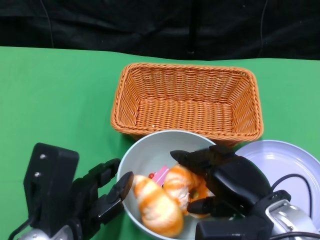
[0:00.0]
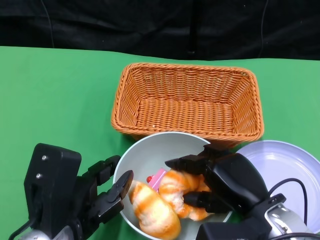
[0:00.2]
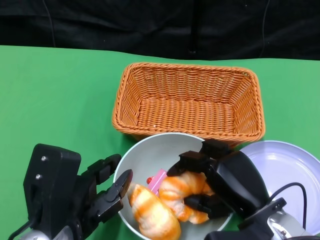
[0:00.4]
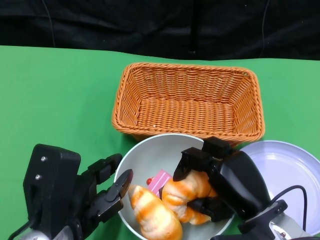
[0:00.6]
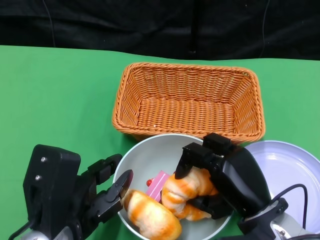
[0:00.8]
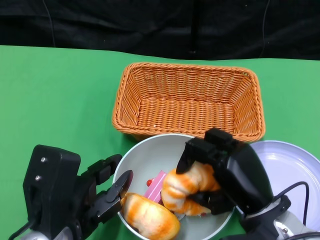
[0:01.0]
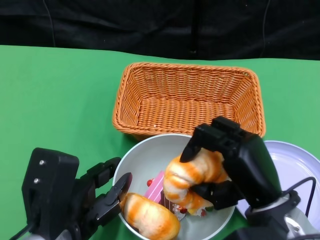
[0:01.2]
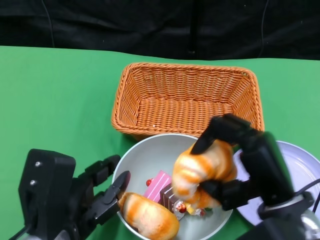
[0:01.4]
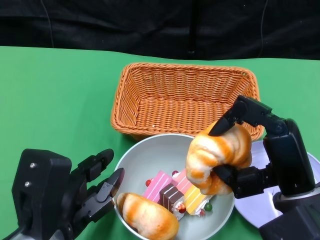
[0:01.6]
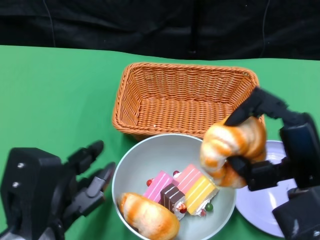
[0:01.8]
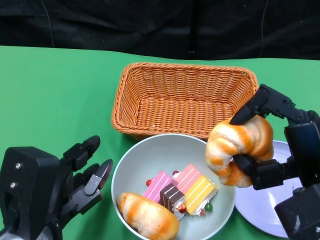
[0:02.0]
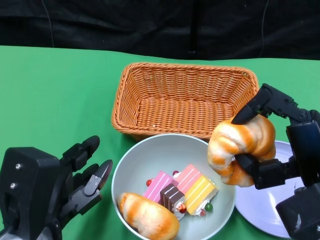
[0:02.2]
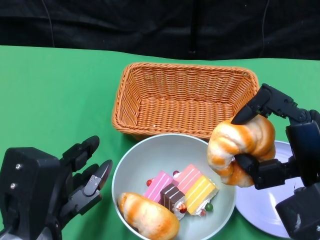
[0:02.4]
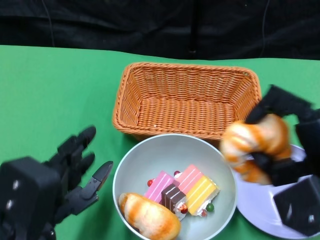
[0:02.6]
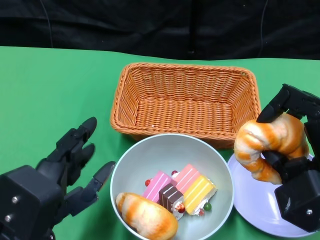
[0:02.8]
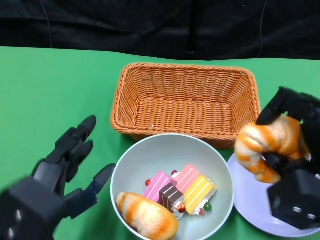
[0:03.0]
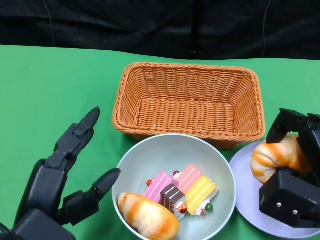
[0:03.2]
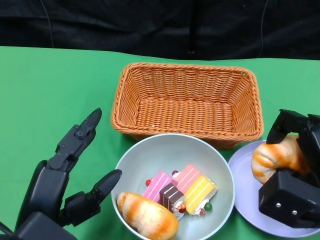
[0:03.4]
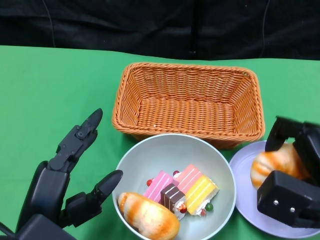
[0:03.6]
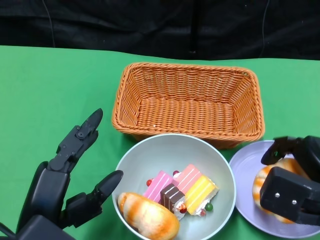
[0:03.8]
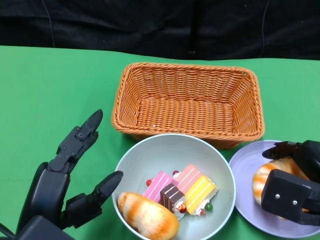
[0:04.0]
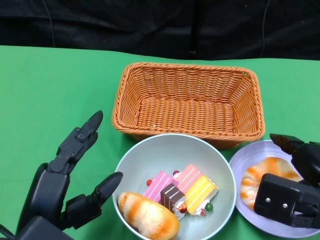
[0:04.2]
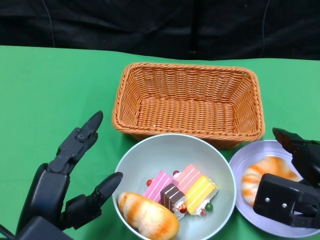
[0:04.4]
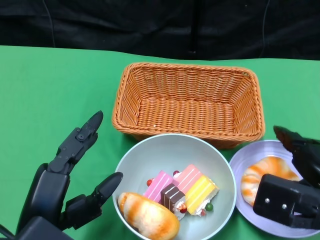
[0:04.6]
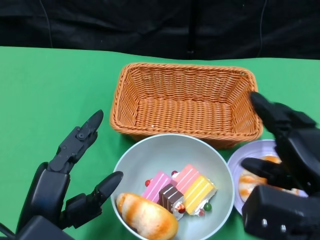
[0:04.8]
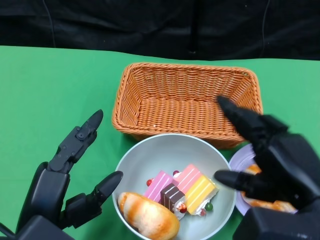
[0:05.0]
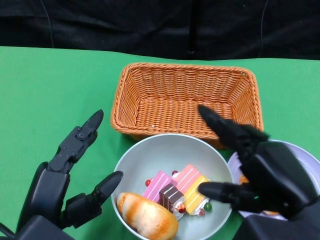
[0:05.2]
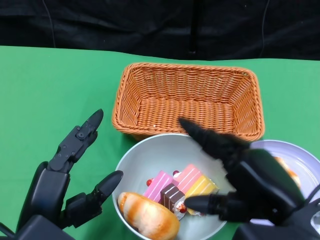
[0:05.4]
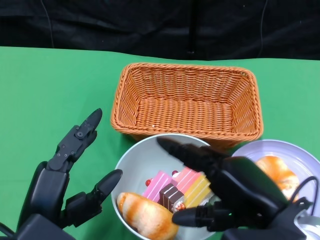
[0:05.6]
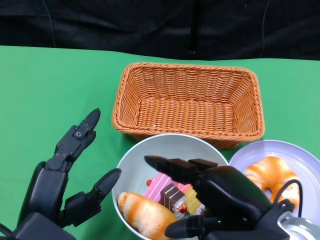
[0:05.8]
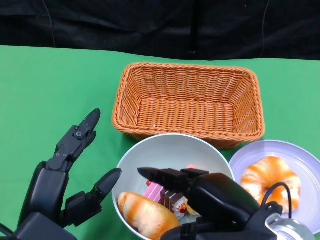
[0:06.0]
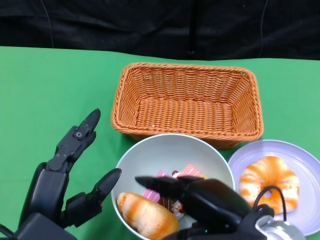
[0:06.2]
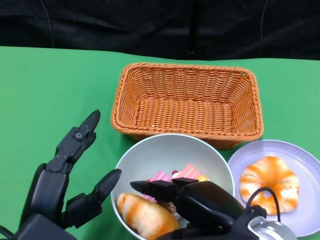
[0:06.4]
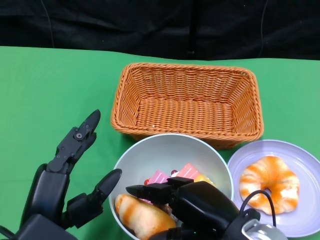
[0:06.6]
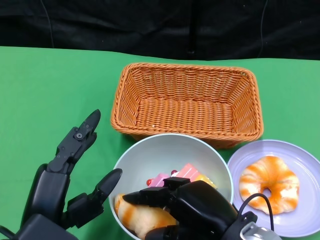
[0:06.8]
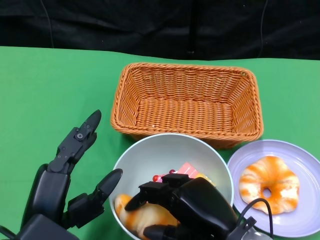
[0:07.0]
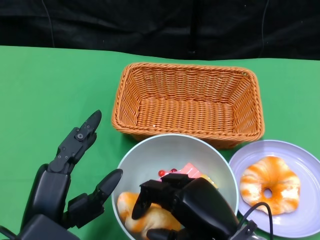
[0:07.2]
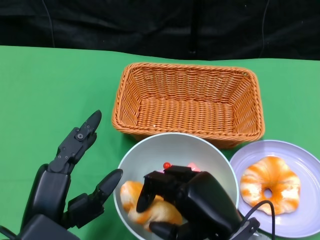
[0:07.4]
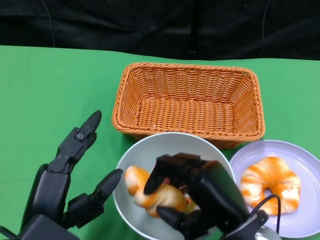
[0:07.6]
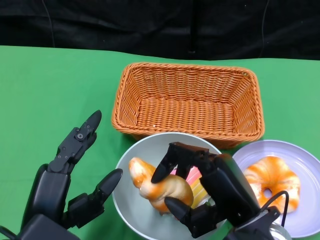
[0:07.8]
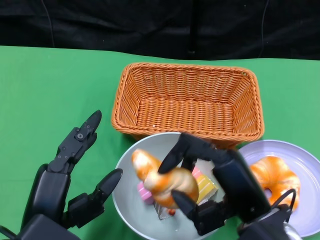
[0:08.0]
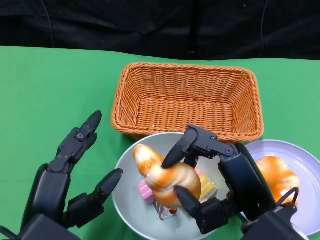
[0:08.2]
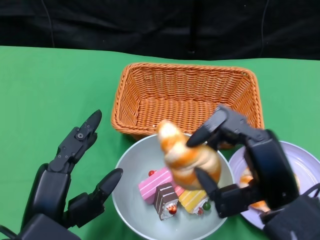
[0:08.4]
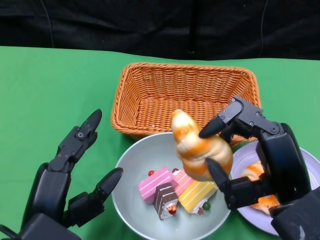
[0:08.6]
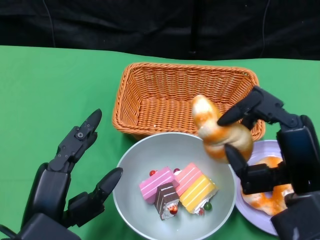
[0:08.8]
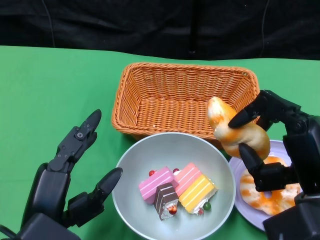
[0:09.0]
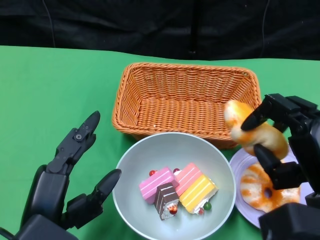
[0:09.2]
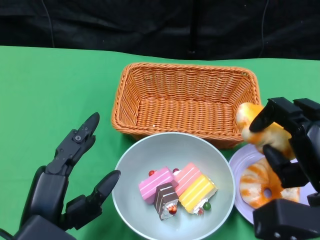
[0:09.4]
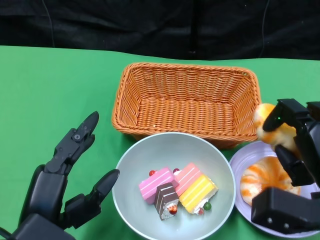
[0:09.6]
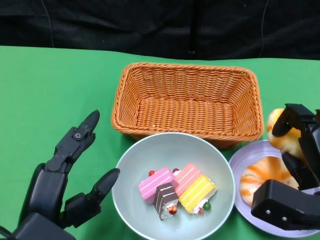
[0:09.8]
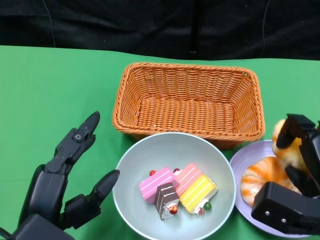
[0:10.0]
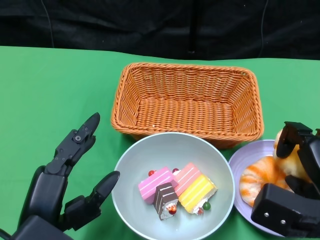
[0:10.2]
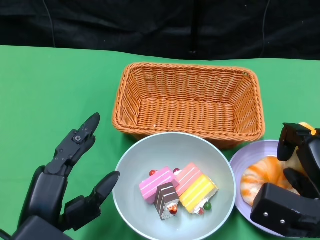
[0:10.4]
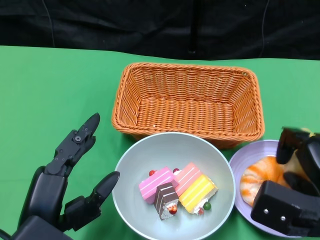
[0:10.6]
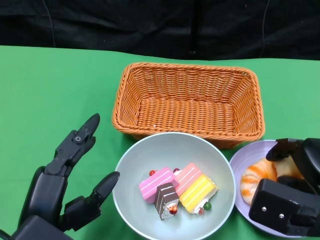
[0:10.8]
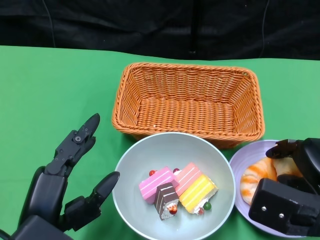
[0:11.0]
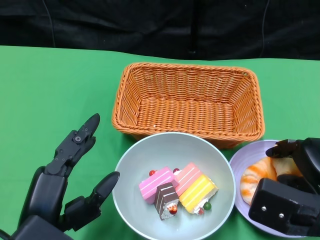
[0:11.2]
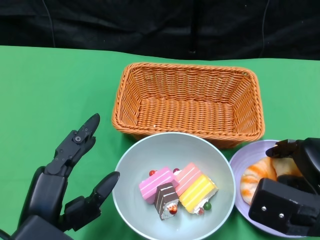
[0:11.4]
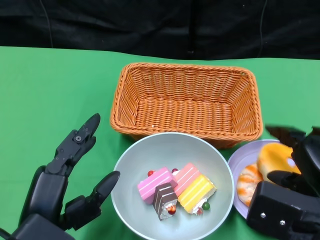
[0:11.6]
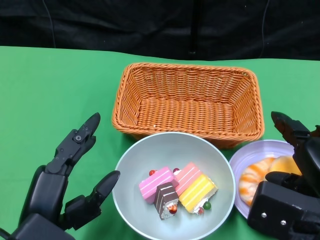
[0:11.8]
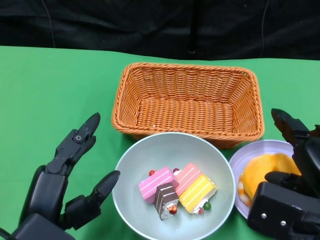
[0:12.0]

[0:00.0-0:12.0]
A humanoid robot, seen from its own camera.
Step, 0:00.0 to 0:04.6: Pick up the bread with the right gripper and place it on the plate.
Step, 0:05.0 to 0:11.6: Pick up the bread with the right gripper and place it on the plate.
0:01.6 to 0:03.0: The right hand is displaced to the right by about 5 cm.
0:04.4 to 0:06.0: The right hand travels to the left by about 10 cm.
0:06.0 to 0:07.6: The right hand changes place by approximately 5 cm.
0:07.6 to 0:09.0: The right hand is displaced to the right by some 10 cm.
0:09.0 to 0:10.4: The right hand moves approximately 5 cm.
0:10.4 to 0:12.0: The hands make only small movements.

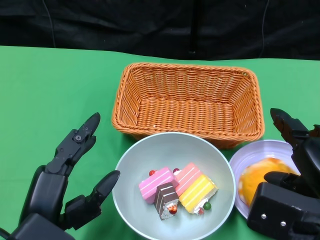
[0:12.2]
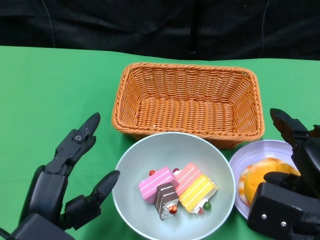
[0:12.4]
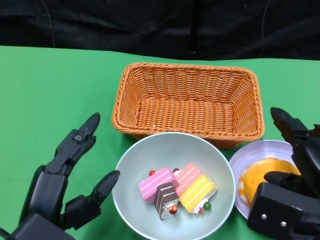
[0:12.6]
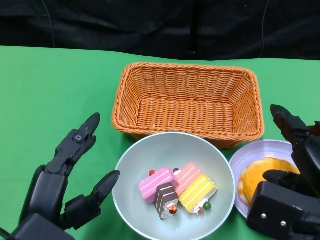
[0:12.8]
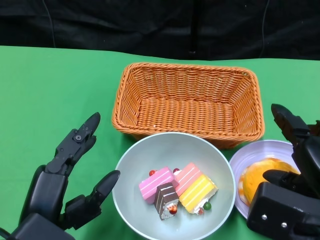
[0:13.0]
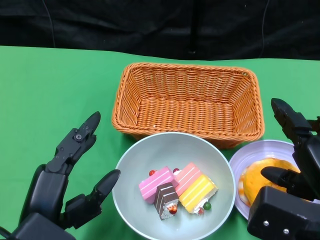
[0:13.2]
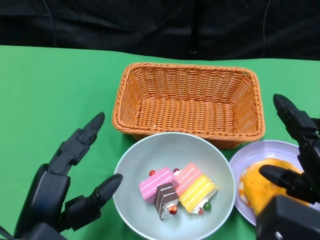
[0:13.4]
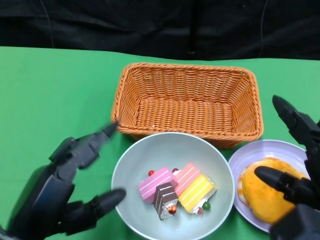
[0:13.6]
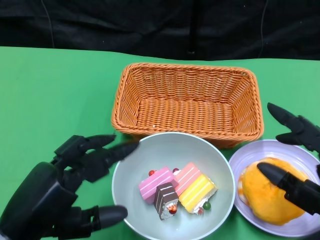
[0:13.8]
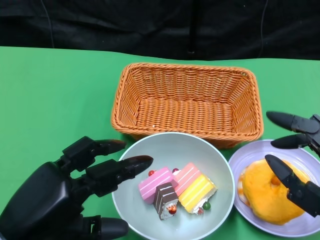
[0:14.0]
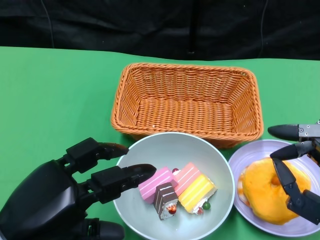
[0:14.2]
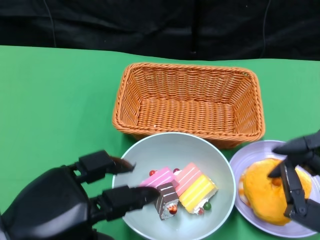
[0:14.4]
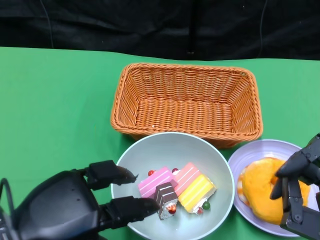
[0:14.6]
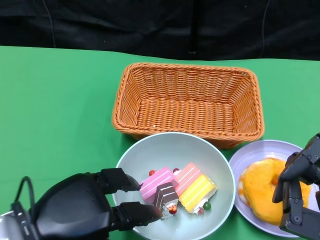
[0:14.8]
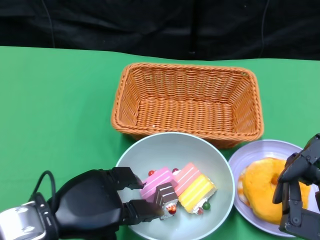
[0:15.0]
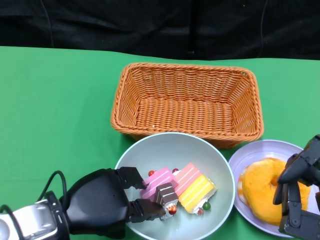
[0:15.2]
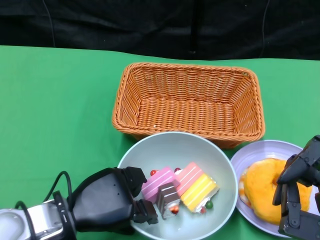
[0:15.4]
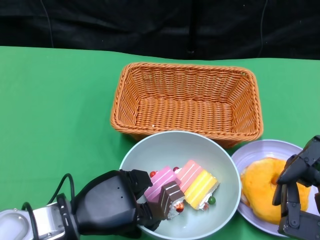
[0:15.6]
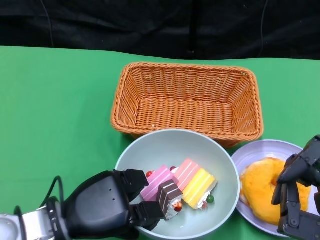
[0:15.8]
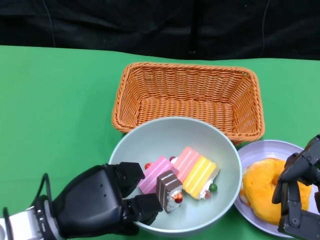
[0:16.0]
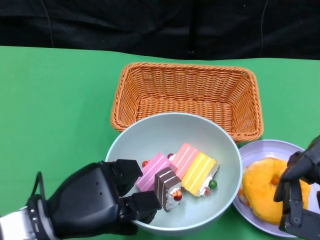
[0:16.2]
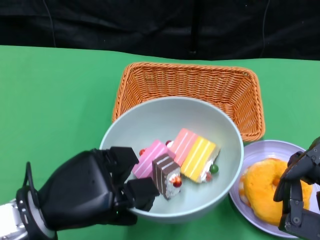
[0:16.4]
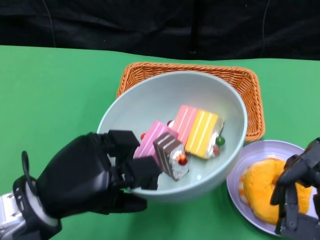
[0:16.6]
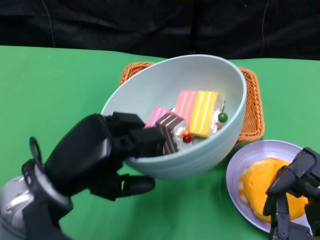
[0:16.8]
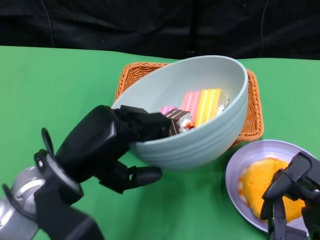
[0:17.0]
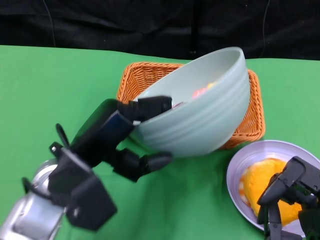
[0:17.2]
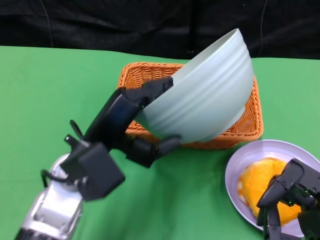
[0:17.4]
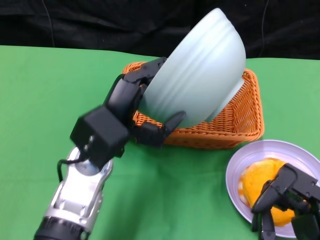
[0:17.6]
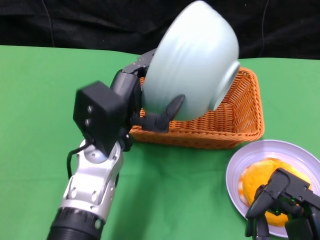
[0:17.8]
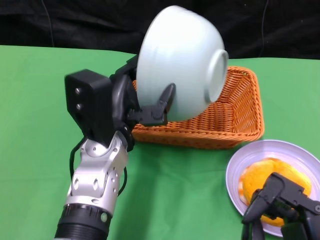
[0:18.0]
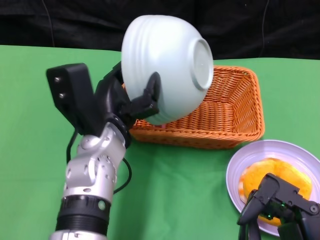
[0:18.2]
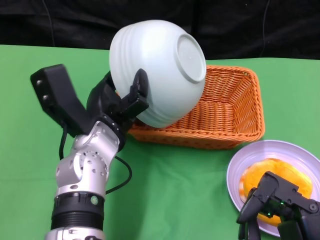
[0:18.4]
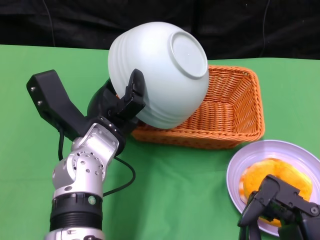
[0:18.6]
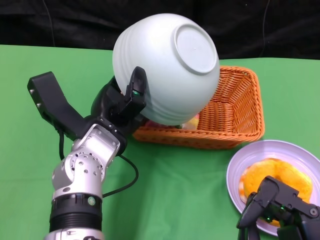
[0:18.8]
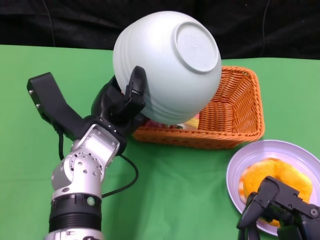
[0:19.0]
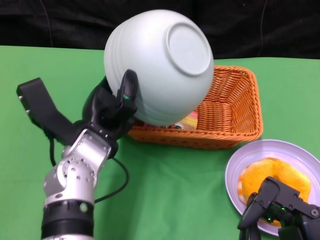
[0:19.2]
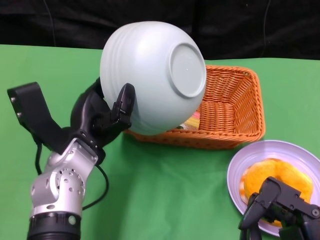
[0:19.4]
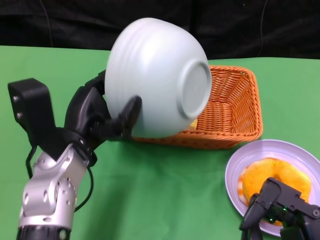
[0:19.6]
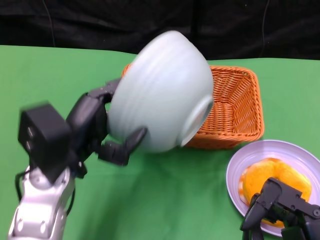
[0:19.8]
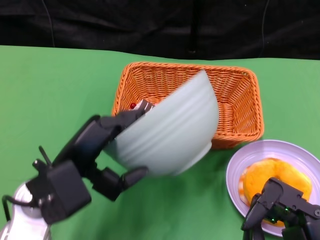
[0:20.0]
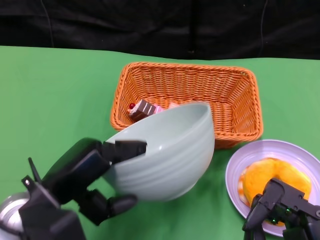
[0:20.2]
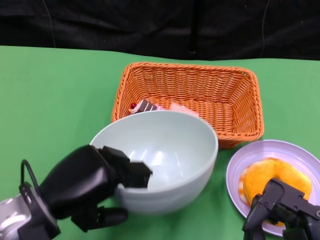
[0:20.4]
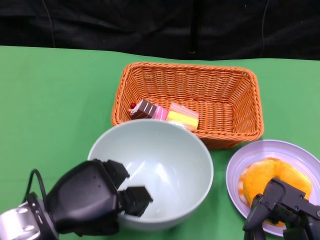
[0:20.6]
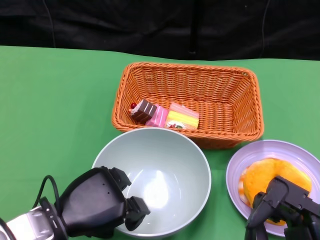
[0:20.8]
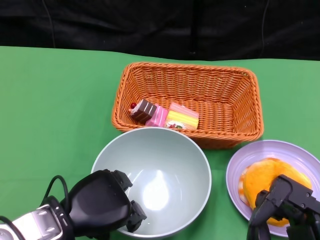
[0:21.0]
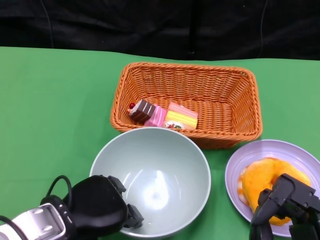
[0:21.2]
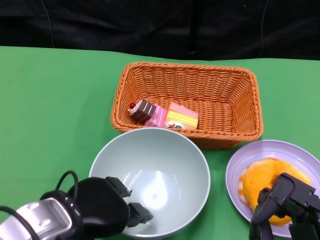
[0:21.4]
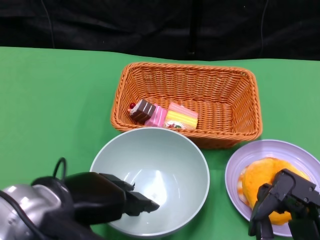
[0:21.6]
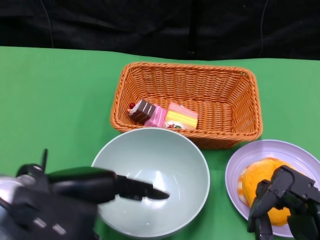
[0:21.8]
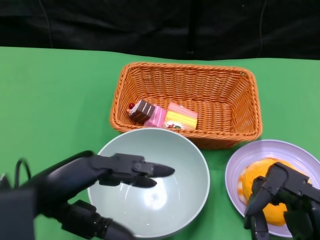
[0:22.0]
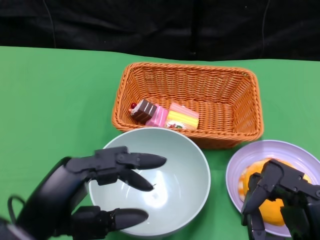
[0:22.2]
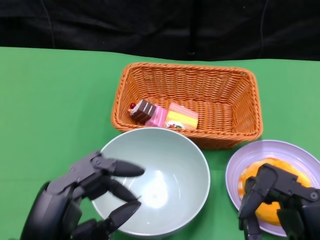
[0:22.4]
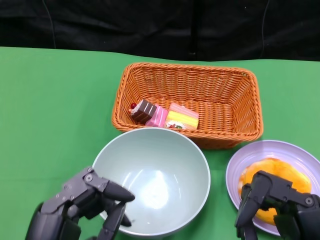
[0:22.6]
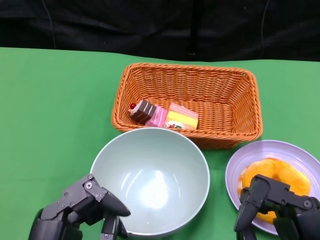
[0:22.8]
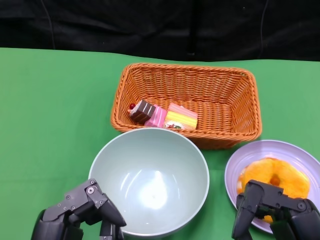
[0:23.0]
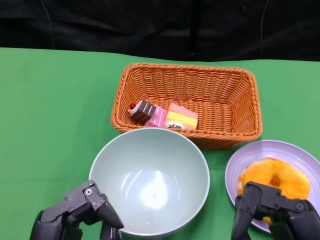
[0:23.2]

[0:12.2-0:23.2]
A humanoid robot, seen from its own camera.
Step, 0:12.2 to 0:15.8: Grasp the bowl with the left gripper.
Step, 0:16.0 to 0:19.2: Pour the cake into the basket with the left gripper.
Step, 0:19.4 to 0:21.6: Place the bowl on the table with the left gripper.
0:13.8 to 0:15.4: The left hand heads forward and downward, covering some 10 cm.
0:15.4 to 0:17.0: The left hand heads upward, covering some 10 cm.
0:17.0 to 0:18.4: The left hand goes about 10 cm forward and to the right.
0:18.4 to 0:20.0: The left hand moves to the left and backward, approximately 10 cm.
0:20.0 to 0:21.6: The left hand ends up roughly 5 cm from where it was.
0:21.6 to 0:23.2: The left hand goes roughly 10 cm backward and downward.
